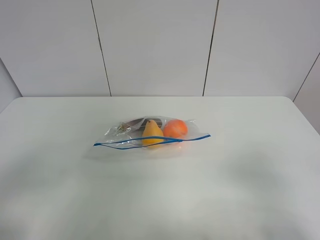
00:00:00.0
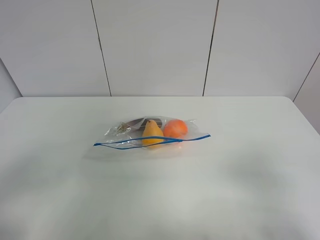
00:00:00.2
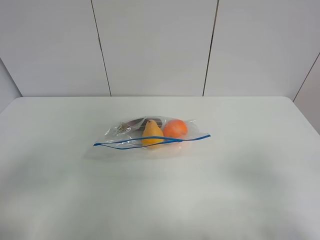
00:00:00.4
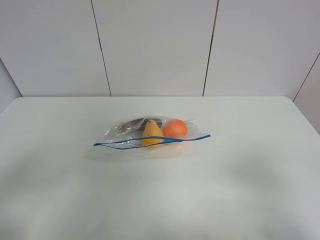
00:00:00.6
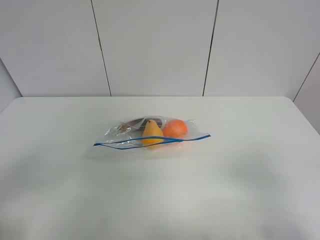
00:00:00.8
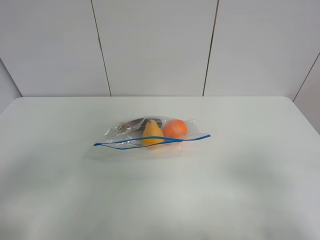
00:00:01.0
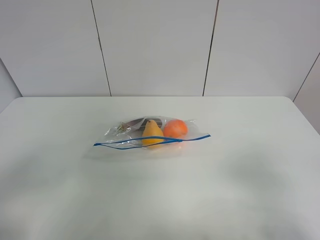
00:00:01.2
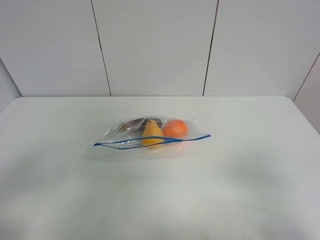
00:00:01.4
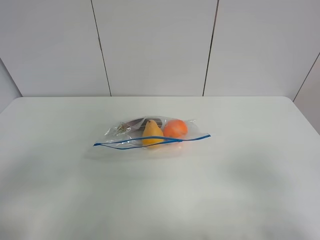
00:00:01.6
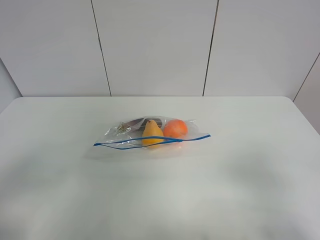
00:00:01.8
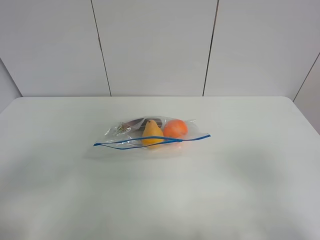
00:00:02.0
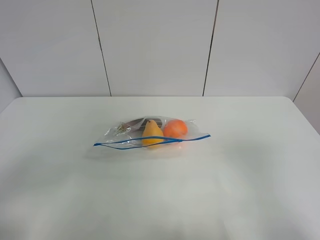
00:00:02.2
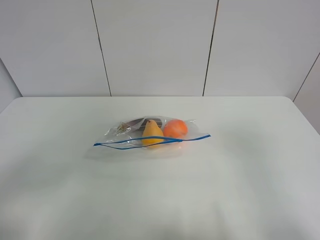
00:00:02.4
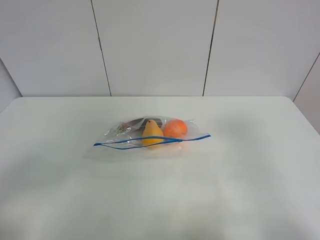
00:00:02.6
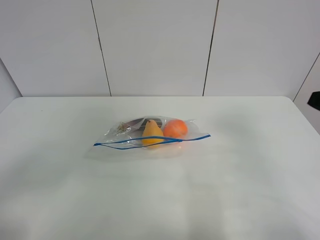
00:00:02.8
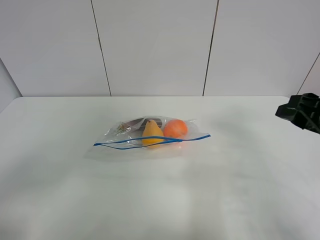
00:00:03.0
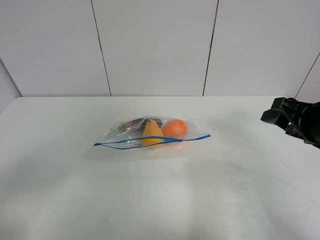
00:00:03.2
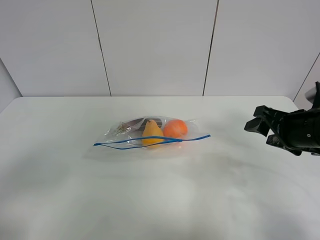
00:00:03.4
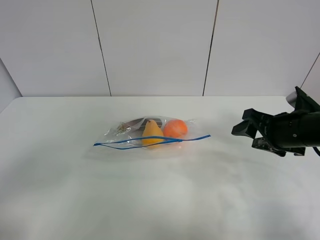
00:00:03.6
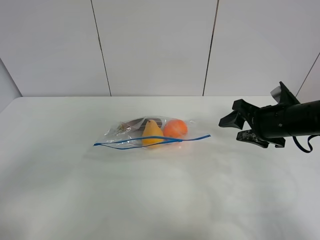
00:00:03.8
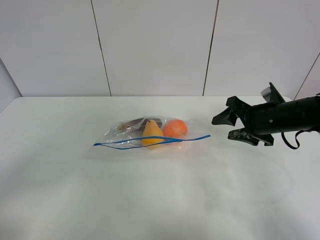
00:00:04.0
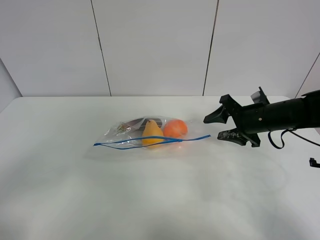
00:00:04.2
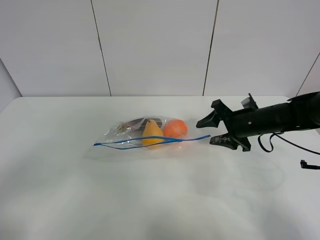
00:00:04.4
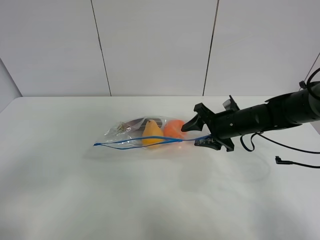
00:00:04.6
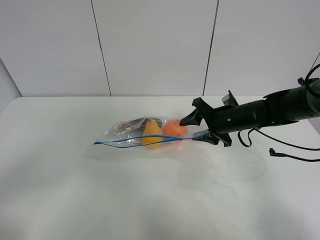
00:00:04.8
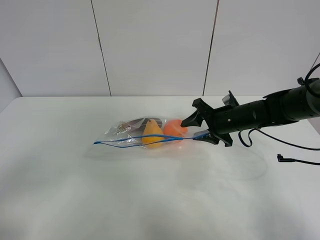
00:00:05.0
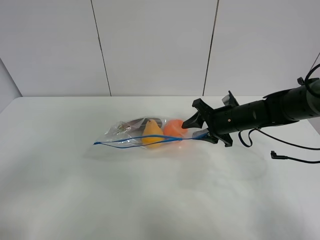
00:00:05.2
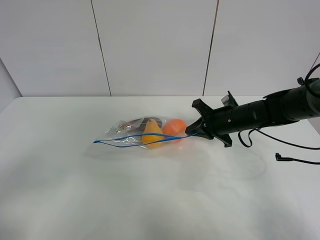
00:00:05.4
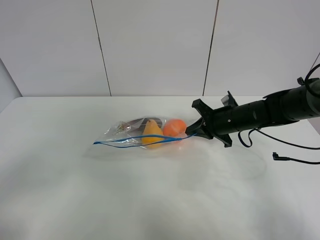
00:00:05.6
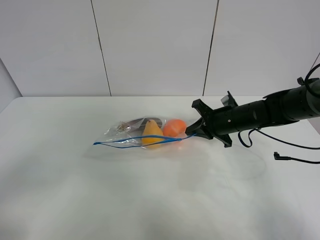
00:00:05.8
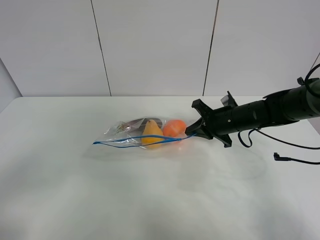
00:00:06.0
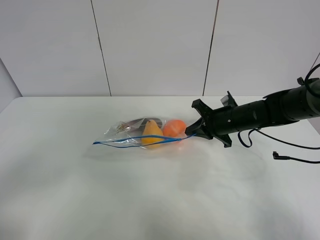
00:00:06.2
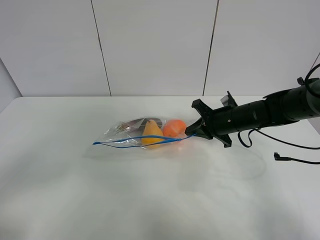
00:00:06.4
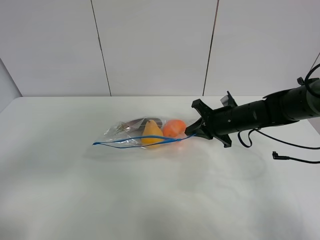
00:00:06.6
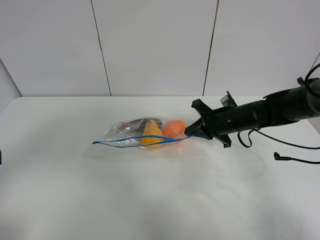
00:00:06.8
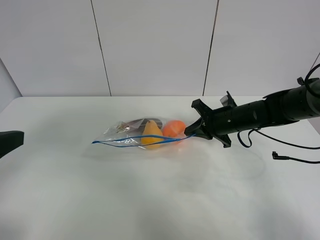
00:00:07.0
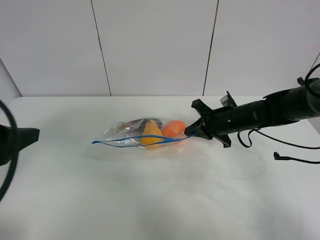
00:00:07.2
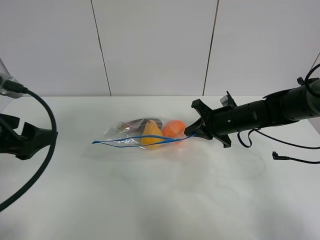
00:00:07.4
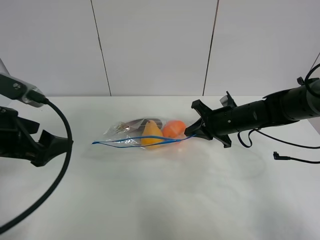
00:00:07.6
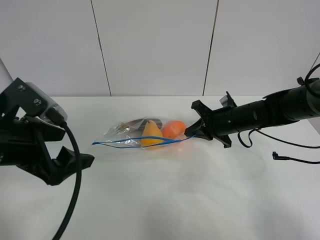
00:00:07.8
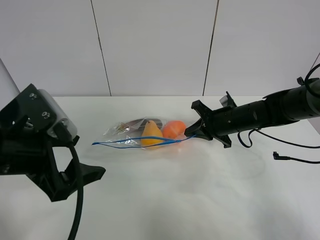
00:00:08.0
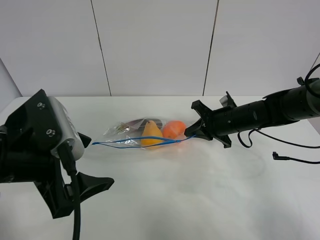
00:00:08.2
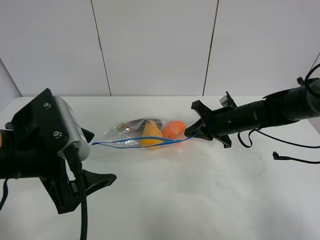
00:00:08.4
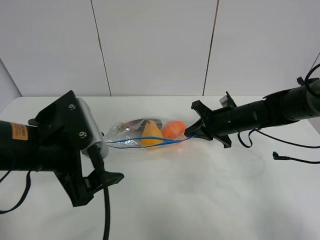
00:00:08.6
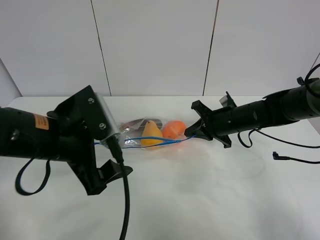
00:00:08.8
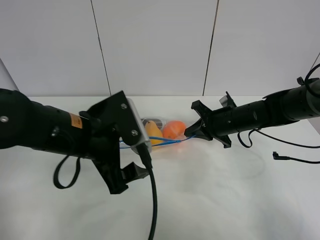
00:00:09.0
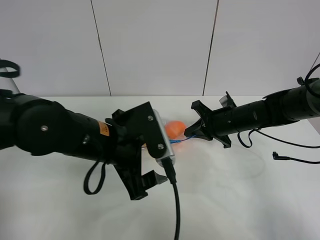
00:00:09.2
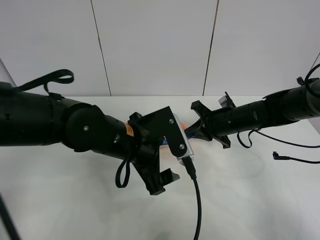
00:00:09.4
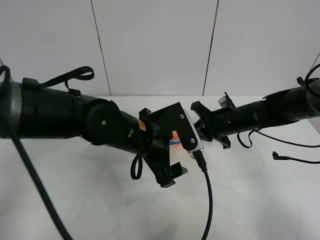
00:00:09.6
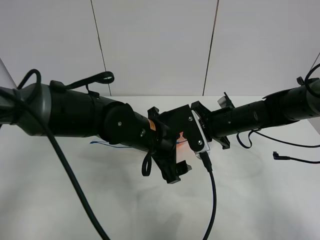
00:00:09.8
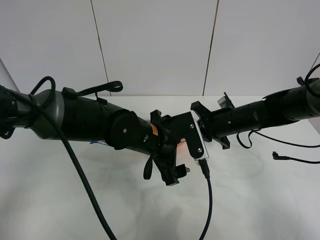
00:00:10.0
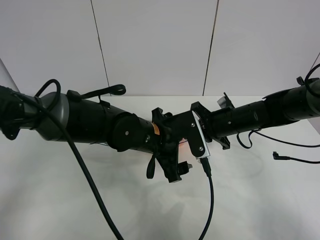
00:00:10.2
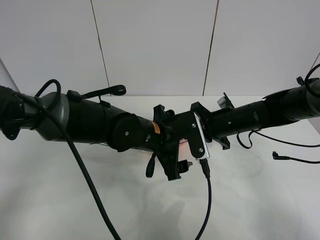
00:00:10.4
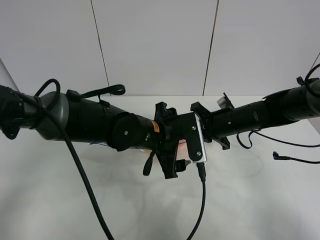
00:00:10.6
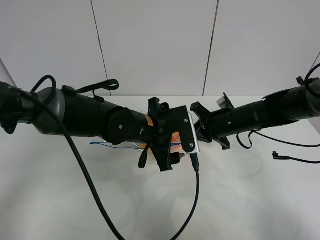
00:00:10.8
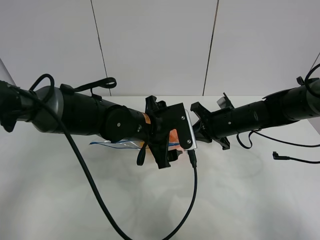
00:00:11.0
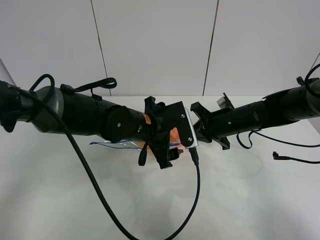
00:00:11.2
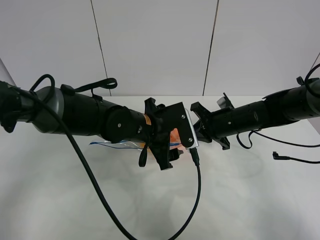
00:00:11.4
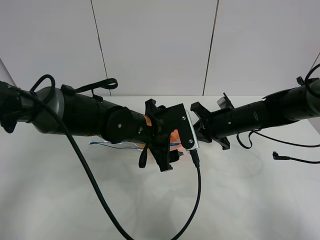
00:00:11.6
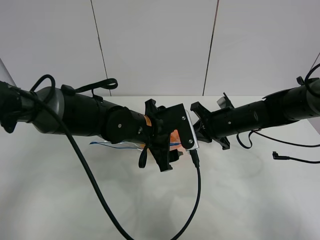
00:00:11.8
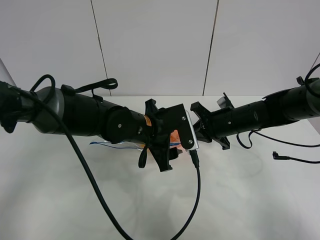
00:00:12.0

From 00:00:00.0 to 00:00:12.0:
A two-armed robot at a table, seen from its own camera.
Step, from 00:00:00.0 to 00:00:05.4: Grasp the fruit bag with right gripper.
From 00:00:00.0 to 00:00:01.6: Both grippers stay about where they are.
From 00:00:01.6 to 00:00:03.0: The right gripper is displaced forward by approximately 20 cm.
From 00:00:03.0 to 00:00:04.4: The right gripper moves forward and downward, about 20 cm.
From 00:00:04.4 to 00:00:06.0: The right gripper closes.
From 00:00:06.0 to 00:00:07.6: The left gripper travels forward by some 20 cm.
From 00:00:07.6 to 00:00:09.0: The left gripper shifts roughly 15 cm to the right.
From 00:00:09.0 to 00:00:10.4: The left gripper goes some 15 cm to the right, forward and downward.
From 00:00:10.4 to 00:00:12.0: There are only small adjustments of the grippers.

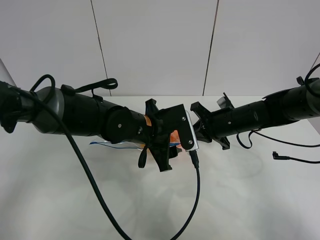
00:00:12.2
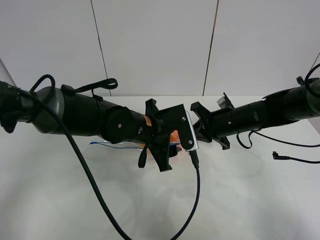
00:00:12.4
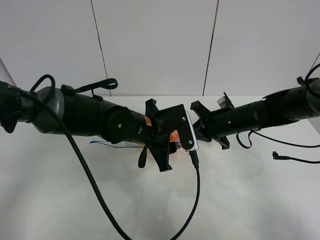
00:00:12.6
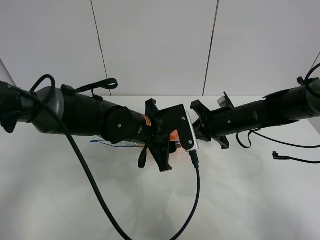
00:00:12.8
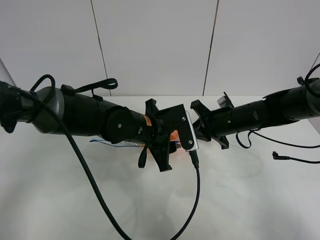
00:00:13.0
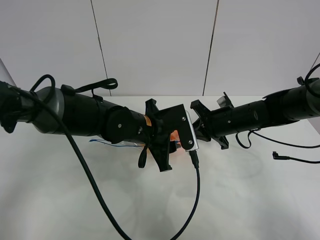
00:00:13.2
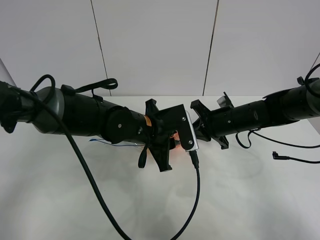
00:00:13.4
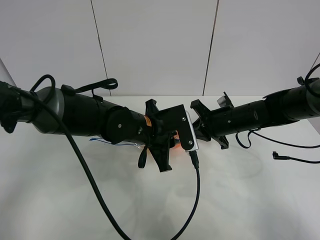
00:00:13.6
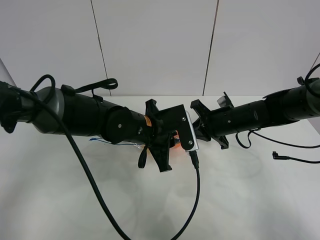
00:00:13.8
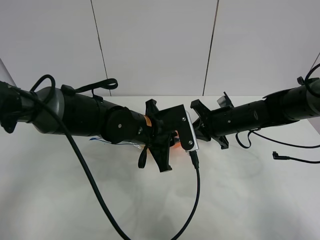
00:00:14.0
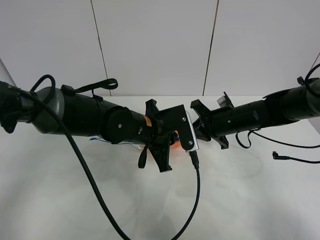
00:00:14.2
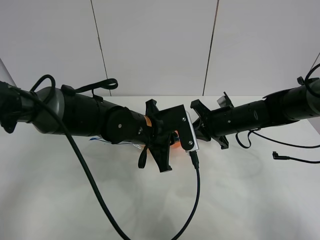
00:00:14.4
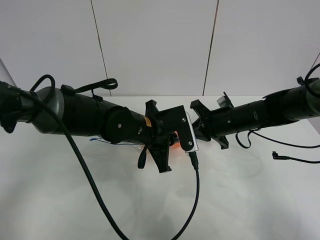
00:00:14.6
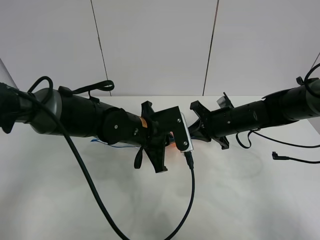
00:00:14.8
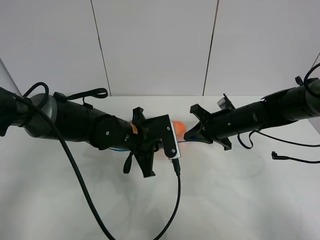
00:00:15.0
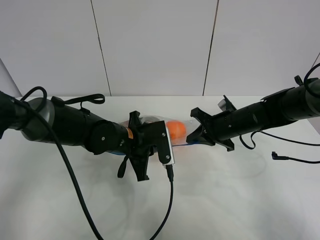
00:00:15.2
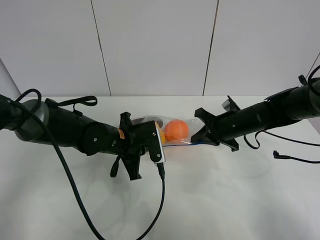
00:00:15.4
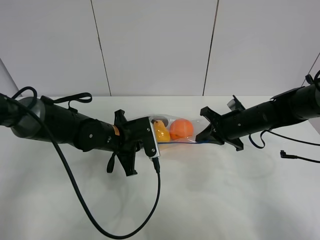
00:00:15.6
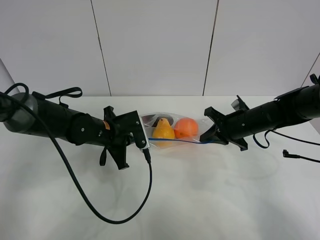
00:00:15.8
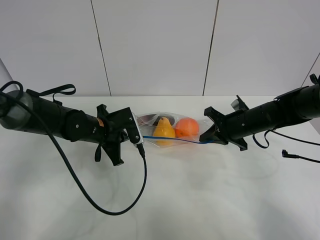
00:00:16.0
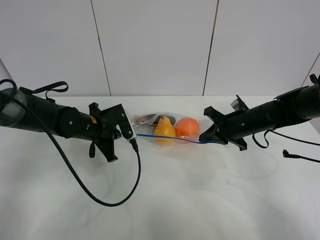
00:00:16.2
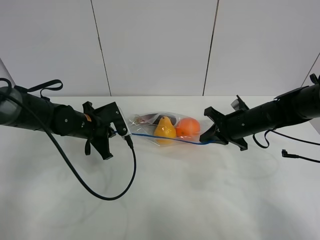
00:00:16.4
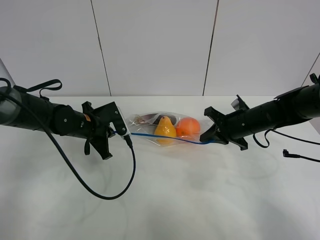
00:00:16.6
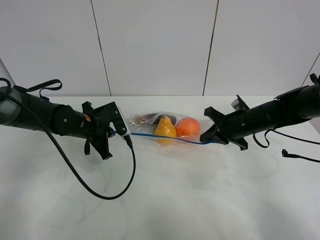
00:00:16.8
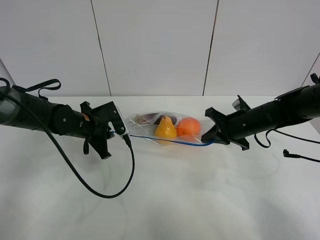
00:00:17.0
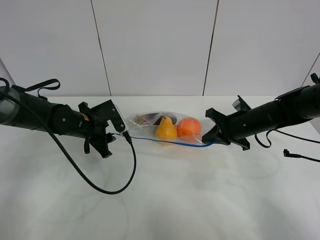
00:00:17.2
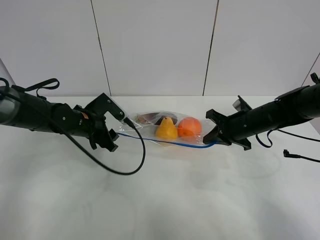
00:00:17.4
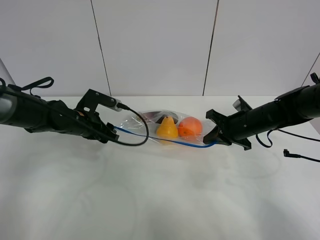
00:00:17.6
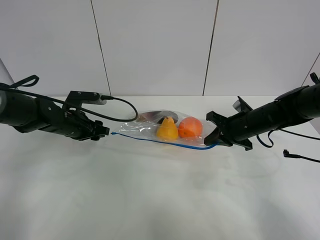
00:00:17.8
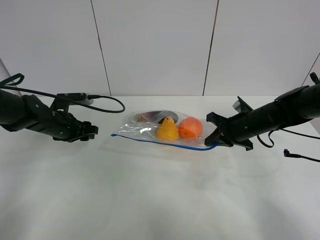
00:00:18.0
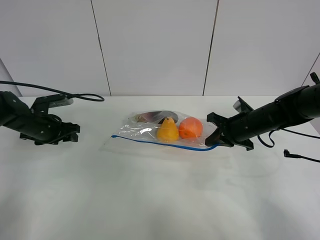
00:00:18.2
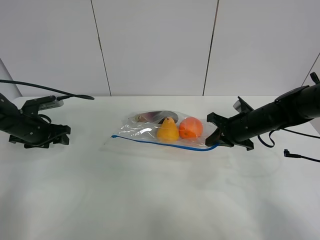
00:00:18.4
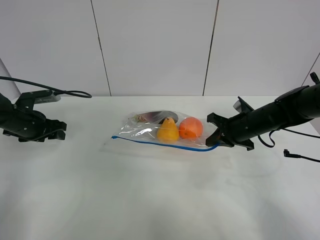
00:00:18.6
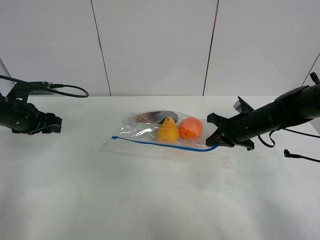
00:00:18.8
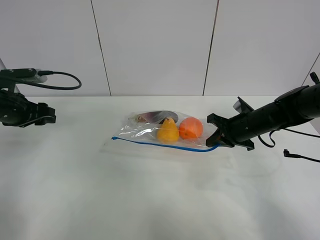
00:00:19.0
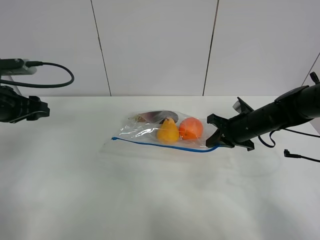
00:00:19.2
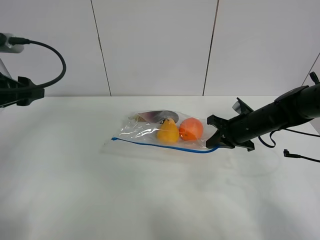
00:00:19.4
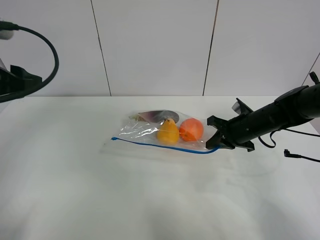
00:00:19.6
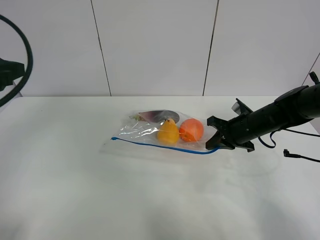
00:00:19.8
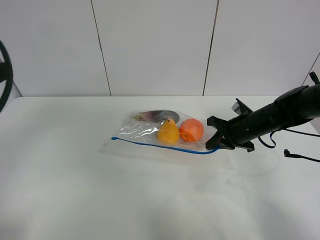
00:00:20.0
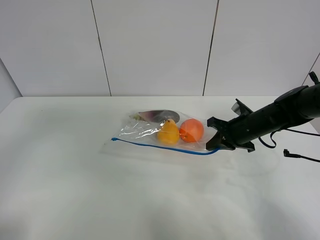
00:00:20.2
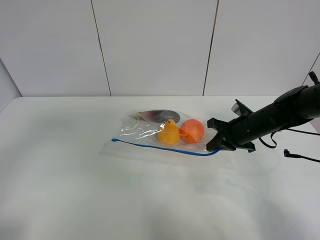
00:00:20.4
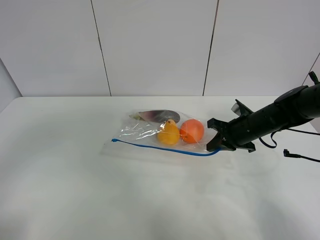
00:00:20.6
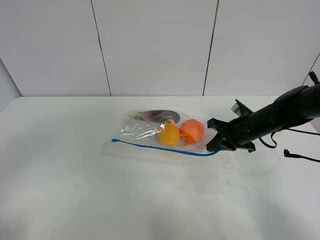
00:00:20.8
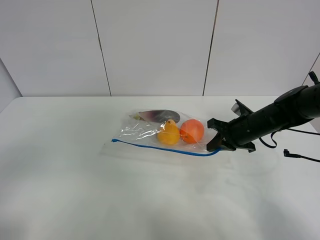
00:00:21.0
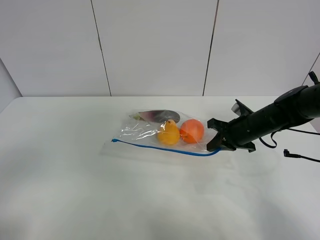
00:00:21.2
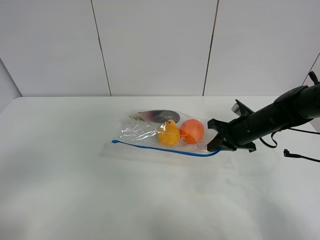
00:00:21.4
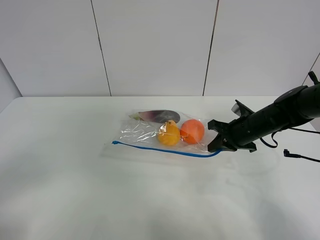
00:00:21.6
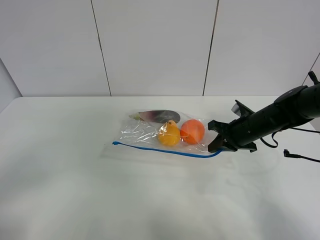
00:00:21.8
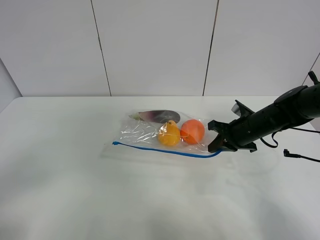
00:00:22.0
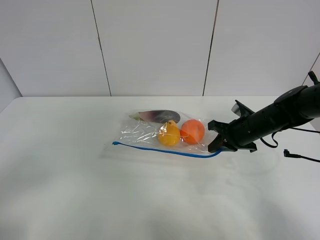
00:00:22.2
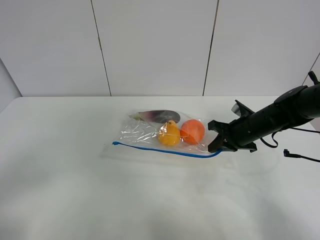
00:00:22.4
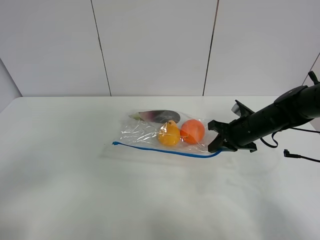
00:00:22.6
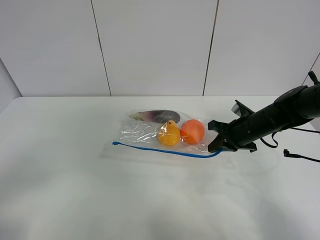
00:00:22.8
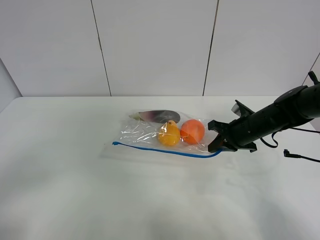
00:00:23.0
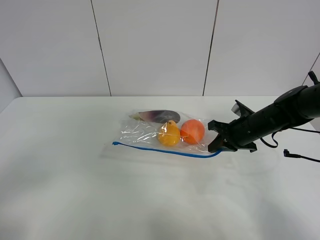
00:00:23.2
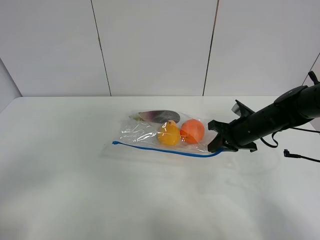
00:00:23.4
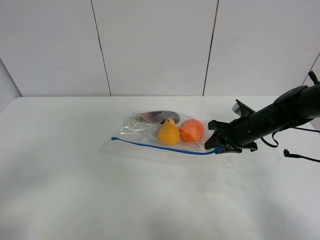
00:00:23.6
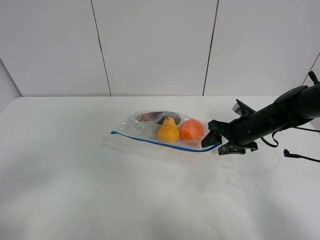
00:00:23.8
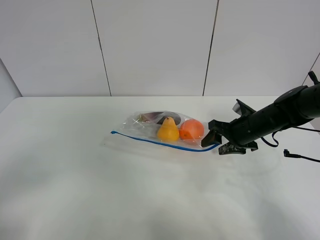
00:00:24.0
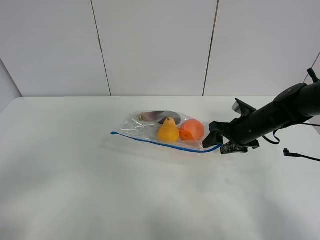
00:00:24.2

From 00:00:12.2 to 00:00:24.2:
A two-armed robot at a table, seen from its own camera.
Step, from 00:00:12.2 to 00:00:17.6: Pull the fruit bag with left gripper.
From 00:00:12.2 to 00:00:13.8: The left gripper closes up.
From 00:00:13.8 to 00:00:15.2: The left gripper moves roughly 5 cm.
From 00:00:15.2 to 00:00:16.6: The left gripper moves to the left and forward, approximately 10 cm.
From 00:00:16.6 to 00:00:18.2: The left gripper travels to the left by some 15 cm, and opens.
From 00:00:18.2 to 00:00:19.8: The left gripper travels upward and backward by approximately 25 cm.
From 00:00:19.8 to 00:00:21.2: The left gripper moves backward, about 20 cm.
From 00:00:21.2 to 00:00:22.6: There are only small adjustments of the grippers.
From 00:00:22.6 to 00:00:24.2: The right gripper opens its fingers.
